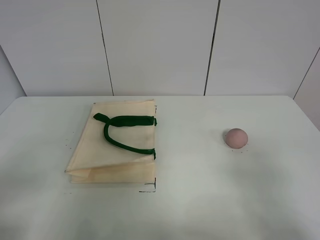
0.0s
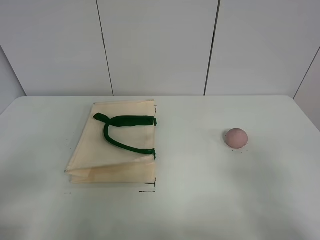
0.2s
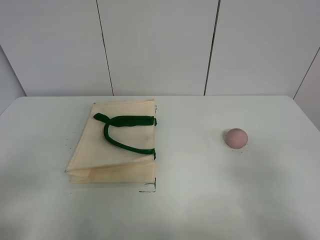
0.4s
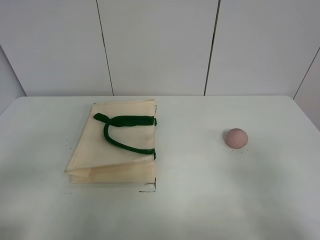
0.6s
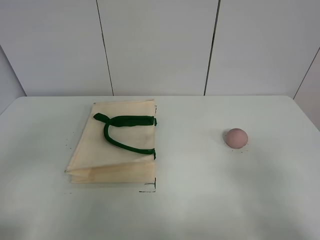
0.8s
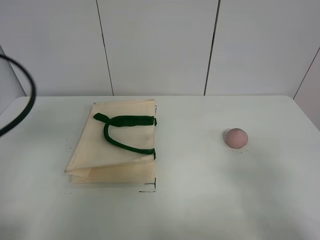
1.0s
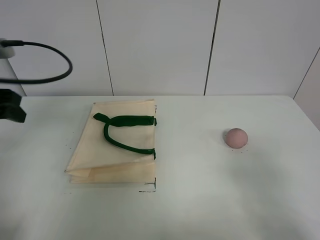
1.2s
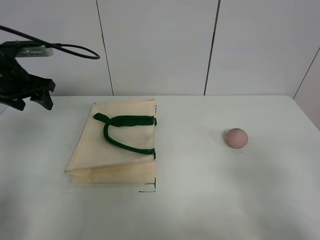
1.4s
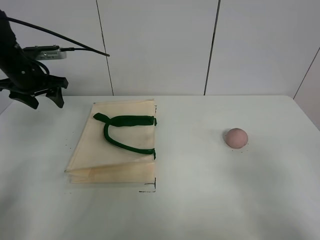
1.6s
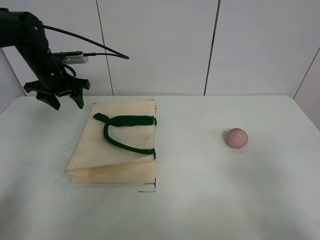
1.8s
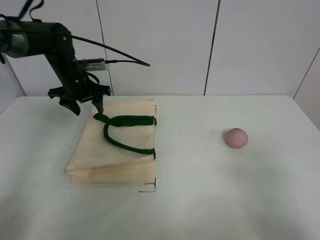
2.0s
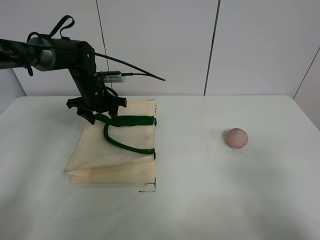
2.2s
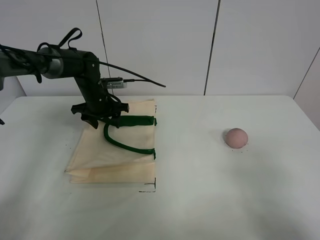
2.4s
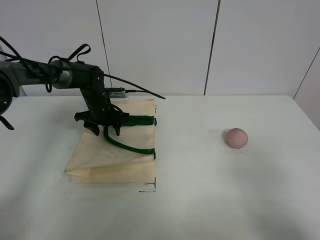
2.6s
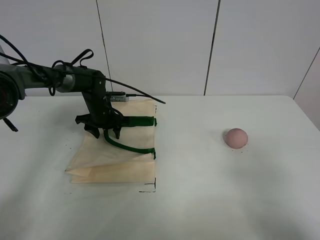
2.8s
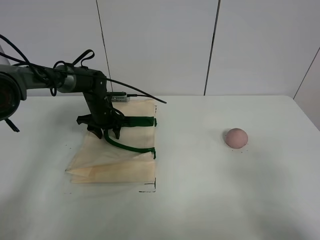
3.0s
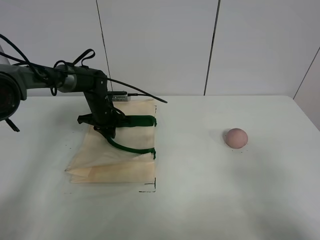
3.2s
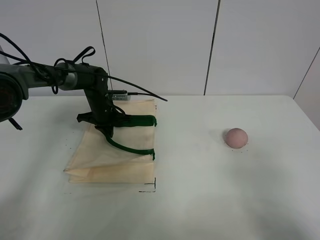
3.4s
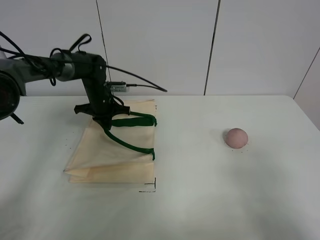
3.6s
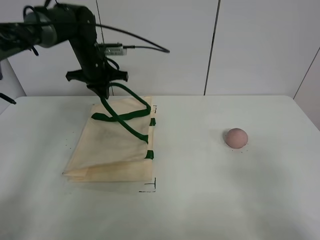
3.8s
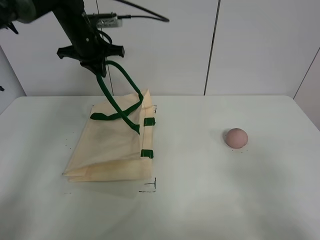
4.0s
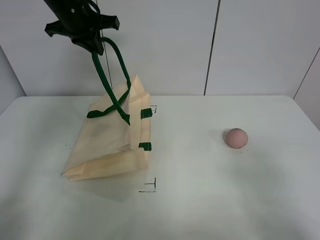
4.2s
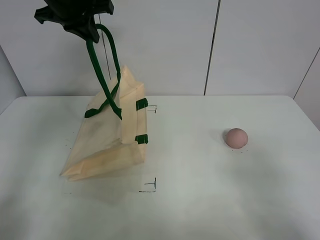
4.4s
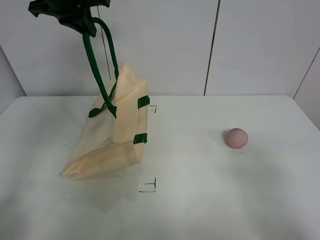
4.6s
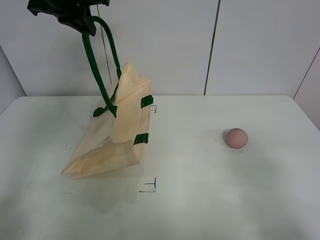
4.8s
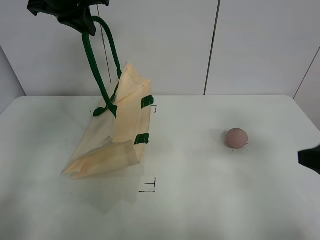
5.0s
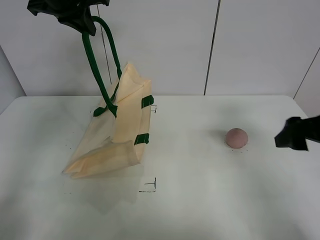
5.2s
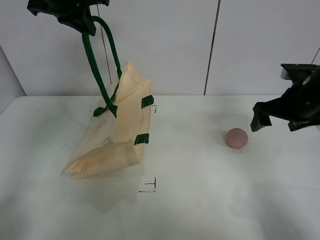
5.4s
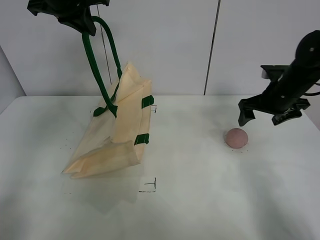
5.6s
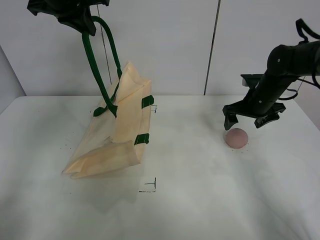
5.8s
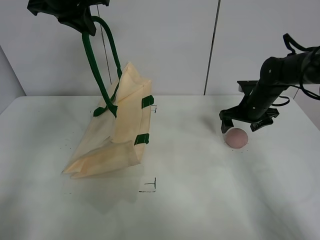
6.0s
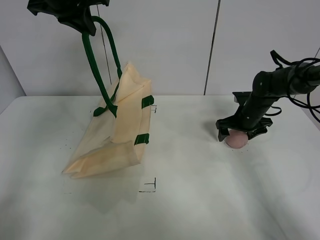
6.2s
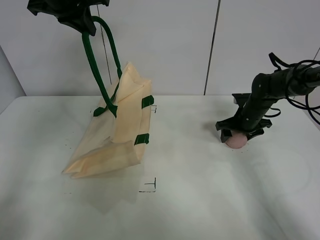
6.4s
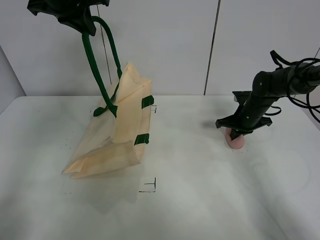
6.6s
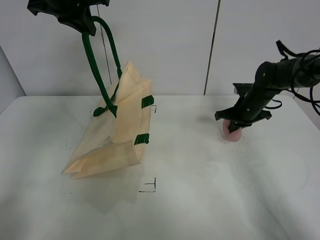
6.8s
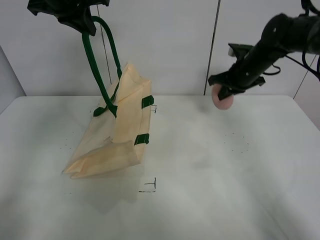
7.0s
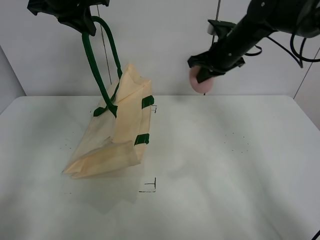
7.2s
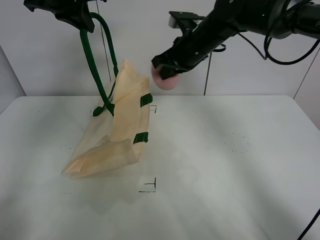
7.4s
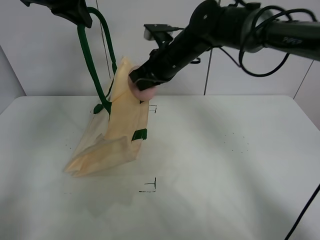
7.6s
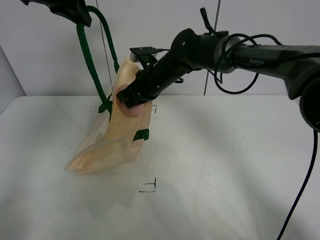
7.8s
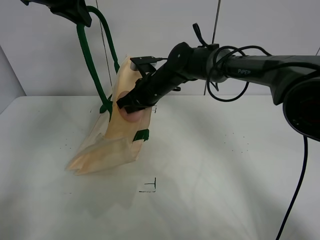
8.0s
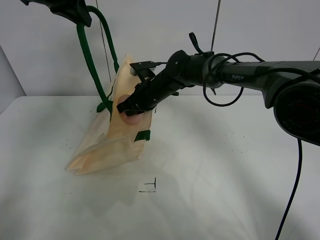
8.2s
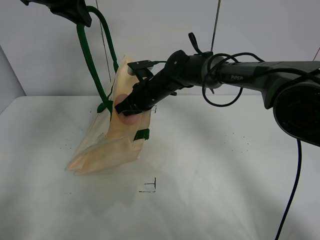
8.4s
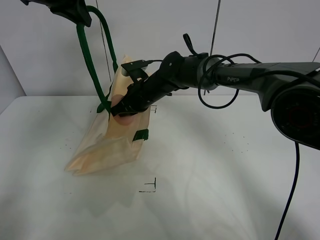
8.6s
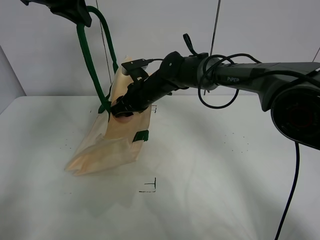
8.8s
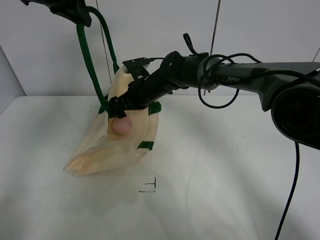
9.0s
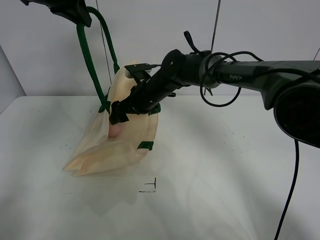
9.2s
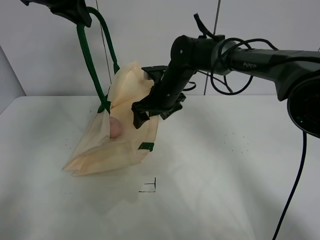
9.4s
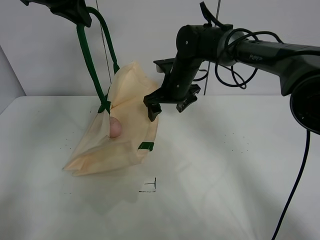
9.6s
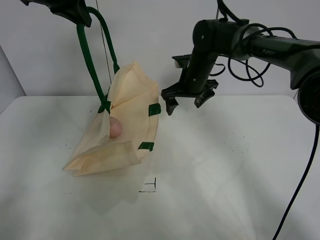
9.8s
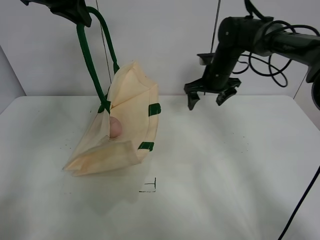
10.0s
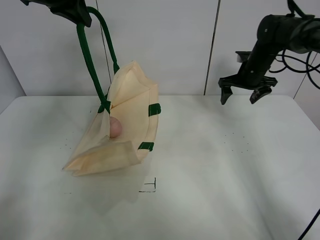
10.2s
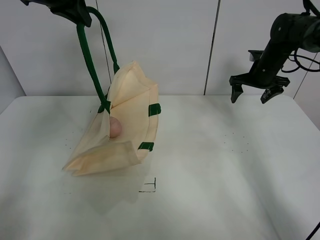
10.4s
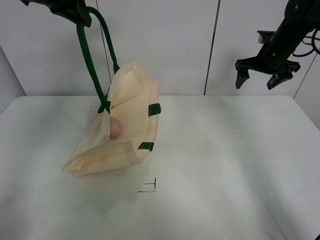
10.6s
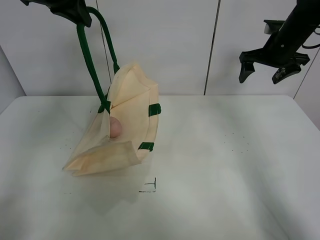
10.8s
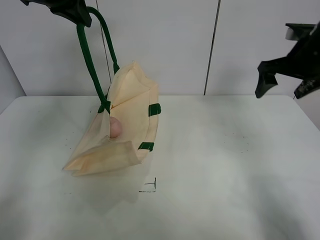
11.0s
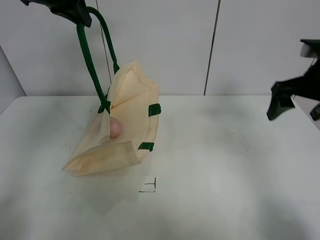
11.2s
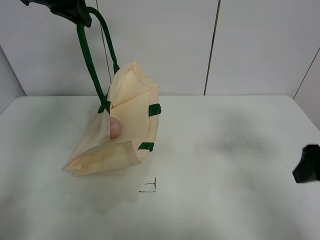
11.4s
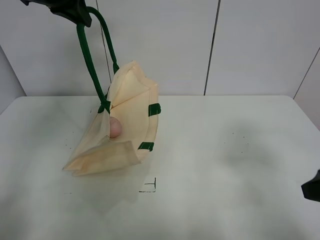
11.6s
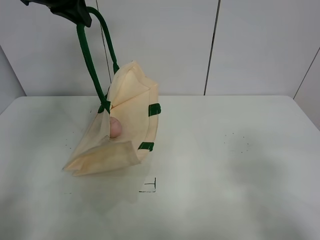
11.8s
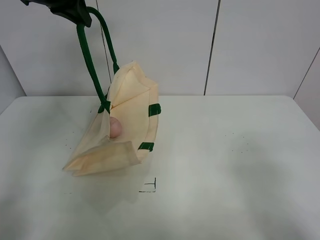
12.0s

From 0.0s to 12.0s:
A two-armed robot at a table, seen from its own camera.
Task of the whole recording: open the white linen bag and put the peach in the bag.
Step, from 0.0s to 4.4s: Lift the handbag with left gripper.
Step, from 4.6s to 6.6s: Grasp the peach with right gripper.
Step, from 6.8s to 9.0s: Place the peach in the handbag with right gripper.
From 0.0s to 1.6s: The left gripper shifts roughly 40 cm forward.
From 1.6s to 3.0s: The left gripper is displaced downward and to the right by roughly 20 cm.
From 3.0s to 4.4s: The left gripper moves upward, roughly 30 cm, and closes its fingers.
From 4.4s to 6.0s: The right gripper shifts about 40 cm forward.
From 6.0s to 7.6s: The right gripper travels to the left and upward by roughly 25 cm, and closes.
From 7.6s to 9.0s: The right gripper goes roughly 10 cm downward, and opens its fingers.
From 9.0s to 10.4s: The right gripper heads to the right, covering roughly 30 cm.
From 10.4s to 12.0s: The right gripper is displaced backward by some 50 cm.

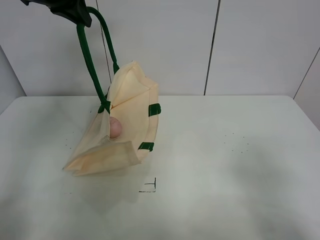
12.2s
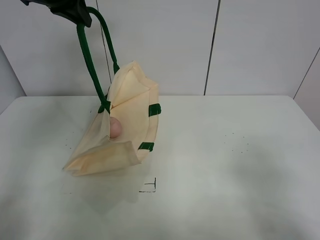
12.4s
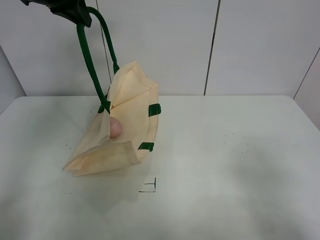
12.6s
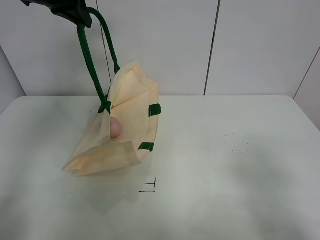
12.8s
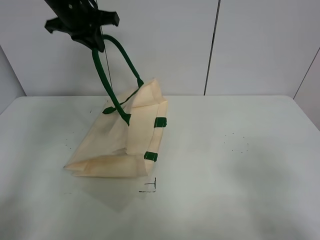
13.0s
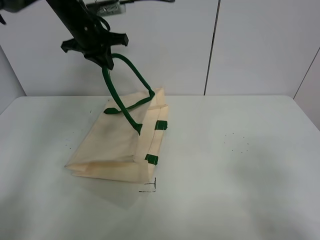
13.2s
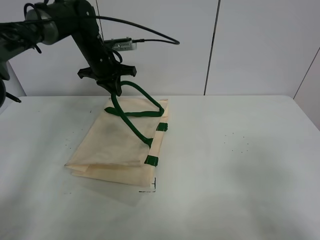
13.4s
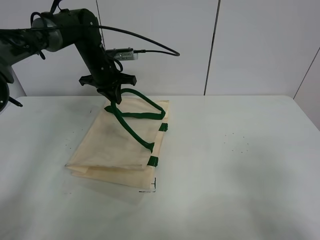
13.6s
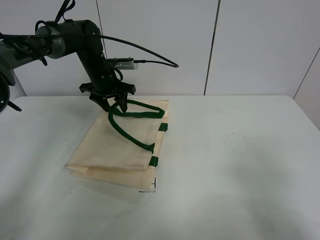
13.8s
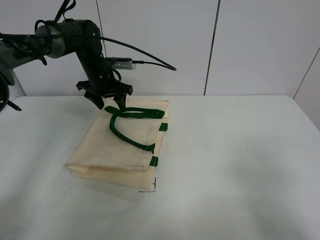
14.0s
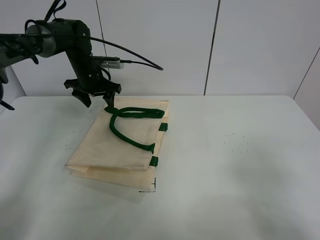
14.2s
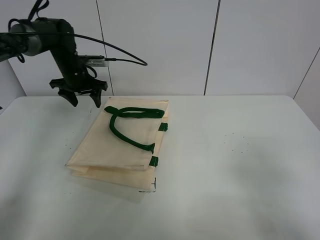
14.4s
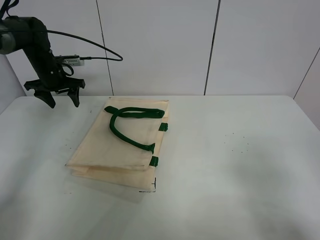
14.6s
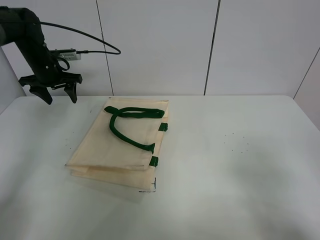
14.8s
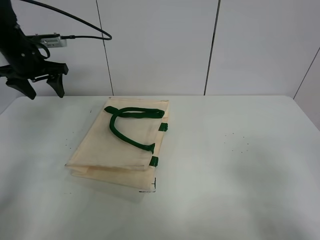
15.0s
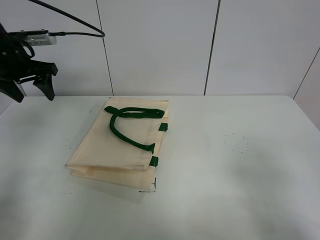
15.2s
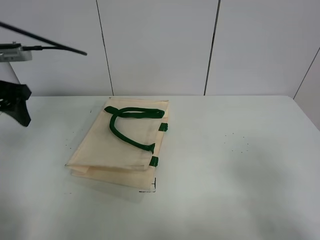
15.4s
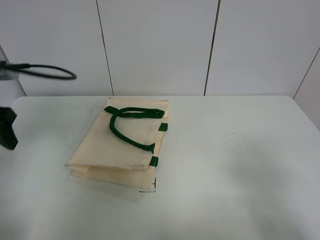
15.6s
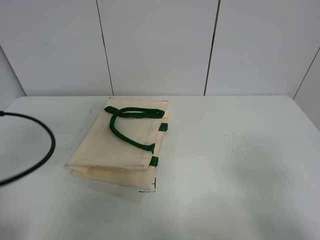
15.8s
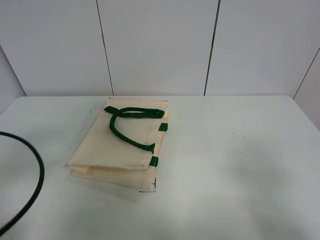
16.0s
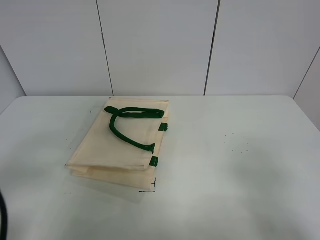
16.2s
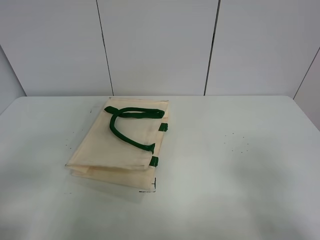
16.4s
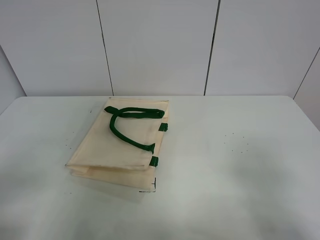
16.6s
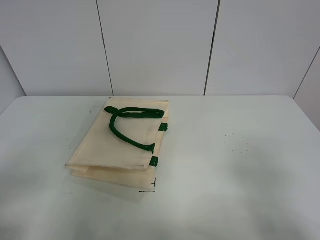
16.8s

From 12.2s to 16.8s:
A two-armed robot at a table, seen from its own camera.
Task of the whole recording: open the white linen bag and put the peach in the bag.
From 12.2s to 13.8s: The left gripper heads downward, covering some 25 cm, and opens.
From 13.8s to 15.2s: The left gripper shifts some 20 cm to the left, backward and upward.
From 15.2s to 16.8s: The left gripper goes approximately 35 cm backward.

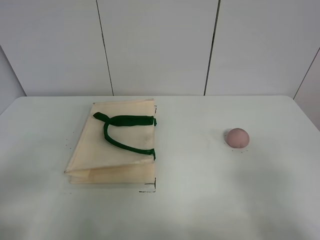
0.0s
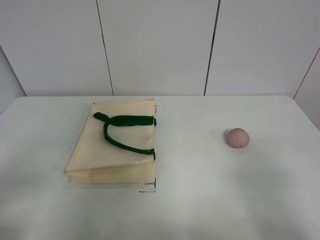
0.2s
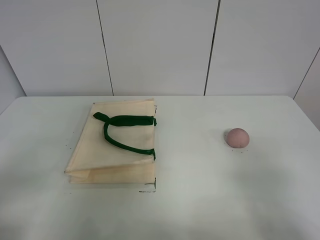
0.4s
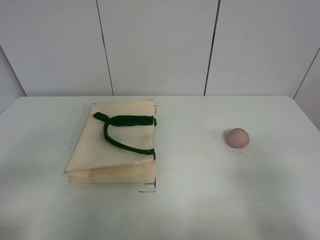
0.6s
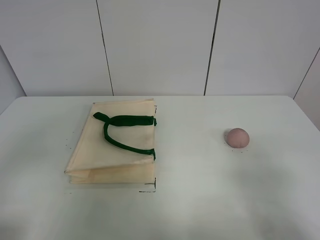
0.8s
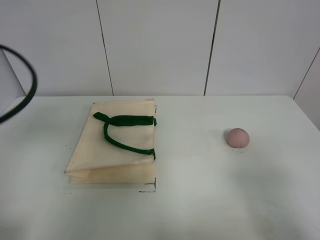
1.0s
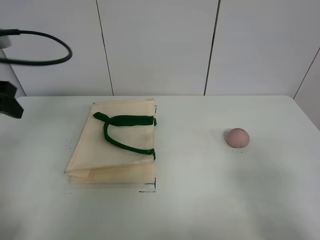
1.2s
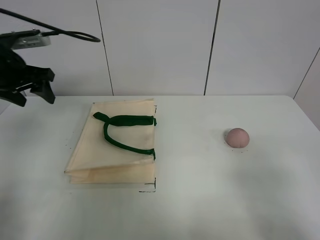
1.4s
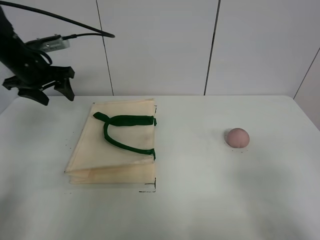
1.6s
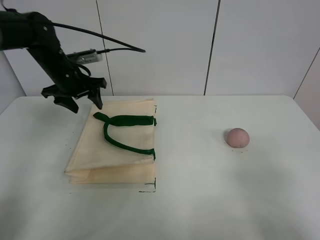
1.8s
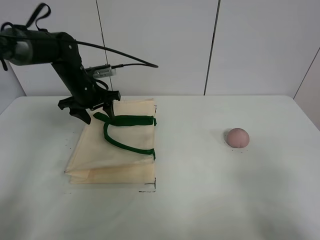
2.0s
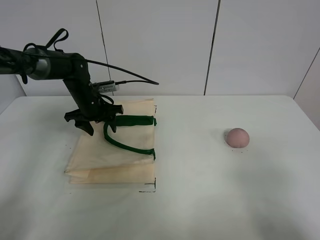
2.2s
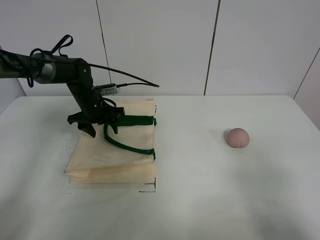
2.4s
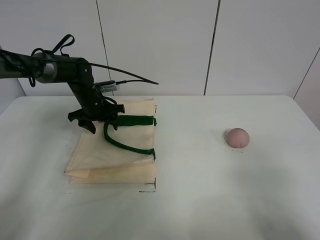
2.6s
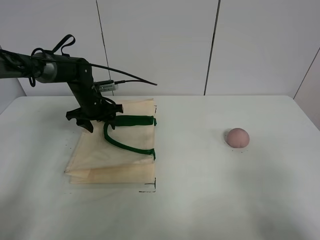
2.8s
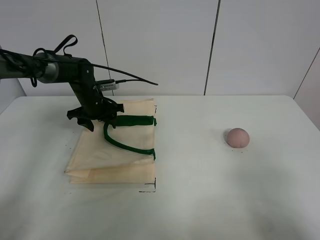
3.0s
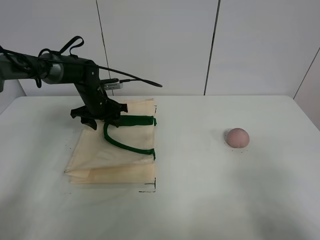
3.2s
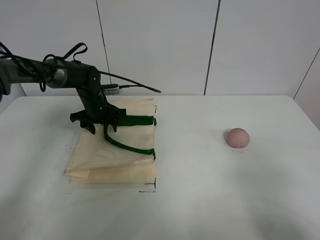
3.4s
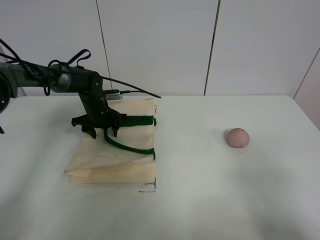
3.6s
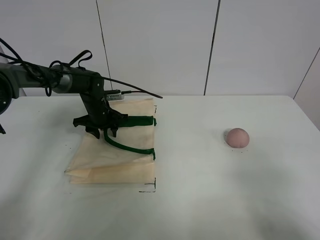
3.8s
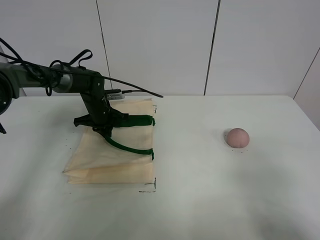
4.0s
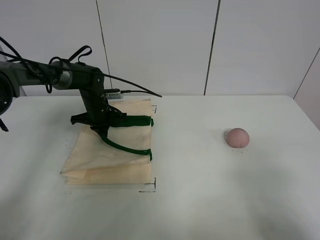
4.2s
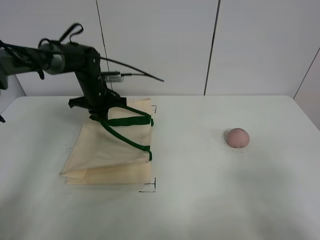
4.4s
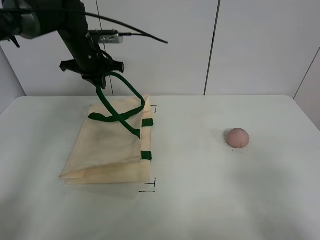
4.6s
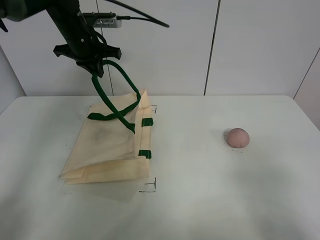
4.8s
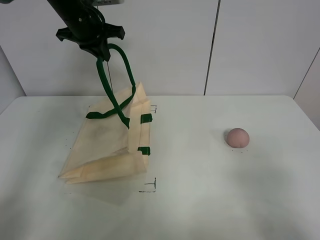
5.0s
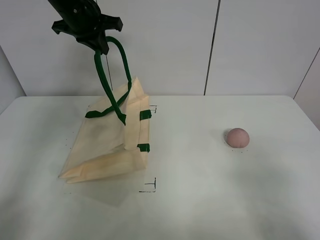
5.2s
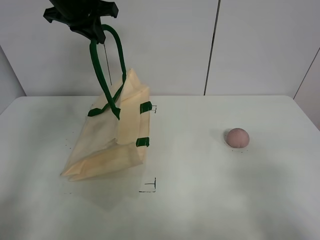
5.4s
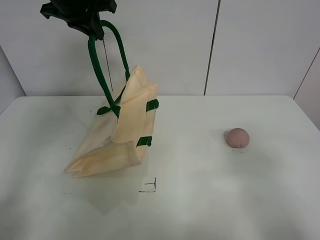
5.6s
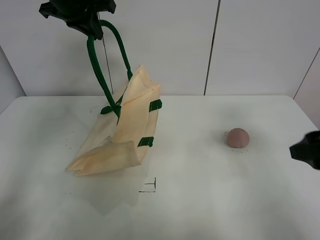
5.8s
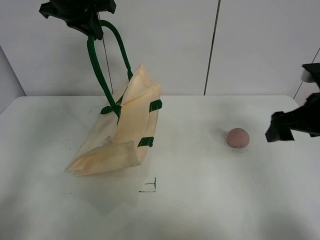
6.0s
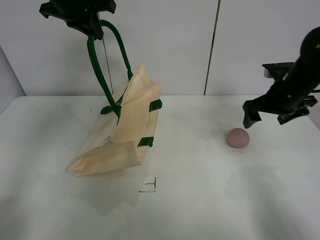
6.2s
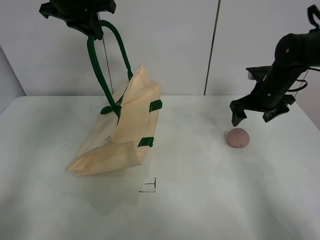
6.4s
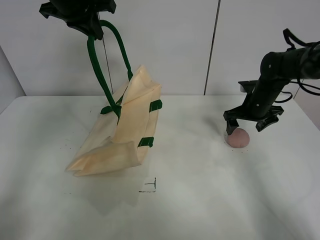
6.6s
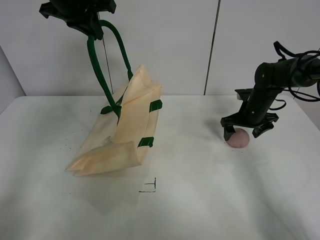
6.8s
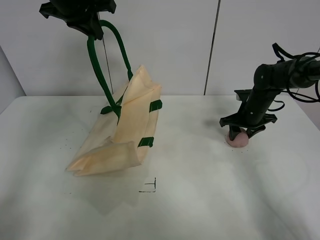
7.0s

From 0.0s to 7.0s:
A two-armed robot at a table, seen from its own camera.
Task of the whole recording: open the white linen bag and put the peach in the bag.
Step, from 0.0s to 5.2s: Lift the handbag with left gripper.
From 0.0s to 1.4s: The left gripper goes about 35 cm forward.
From 1.4s to 2.8s: The left gripper heads downward, to the right and forward, covering roughly 20 cm.
From 2.8s to 4.2s: The left gripper closes its fingers.
From 4.2s to 5.6s: The left gripper goes approximately 30 cm upward. The right gripper is displaced forward by about 5 cm.
From 5.6s to 7.0s: The right gripper moves forward and downward, some 40 cm, and closes.
